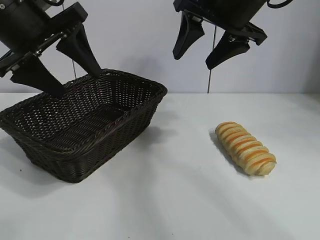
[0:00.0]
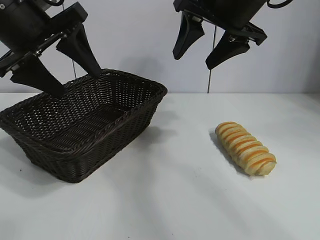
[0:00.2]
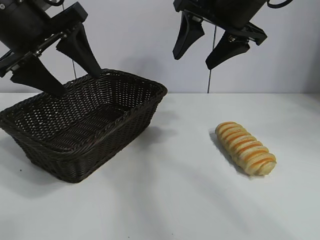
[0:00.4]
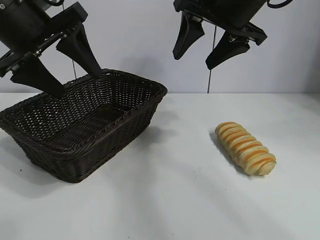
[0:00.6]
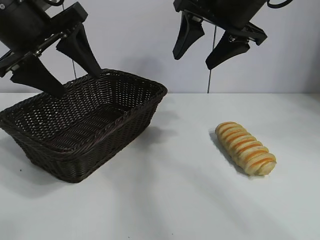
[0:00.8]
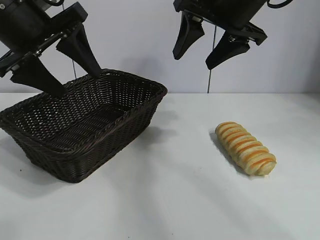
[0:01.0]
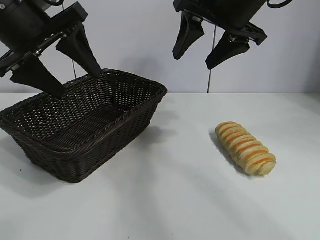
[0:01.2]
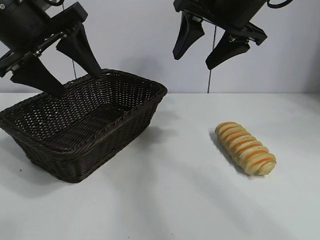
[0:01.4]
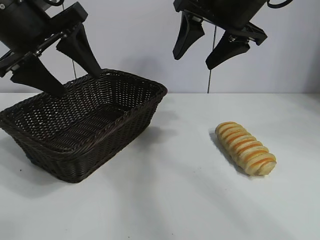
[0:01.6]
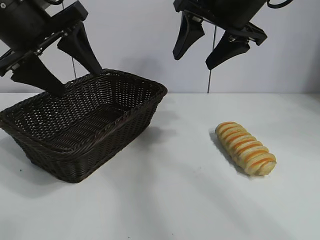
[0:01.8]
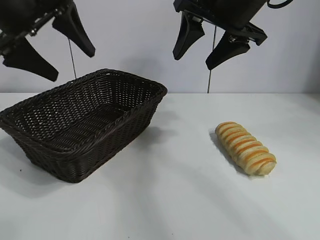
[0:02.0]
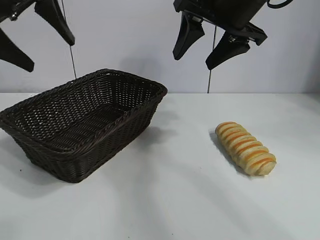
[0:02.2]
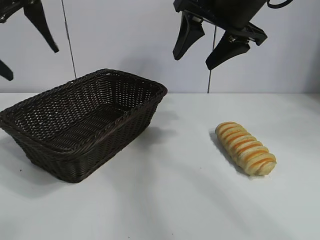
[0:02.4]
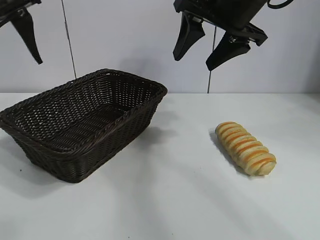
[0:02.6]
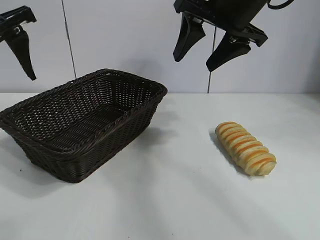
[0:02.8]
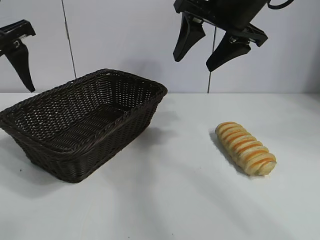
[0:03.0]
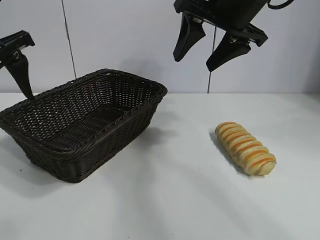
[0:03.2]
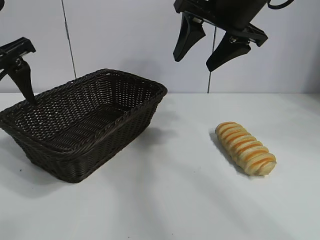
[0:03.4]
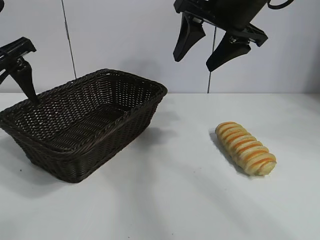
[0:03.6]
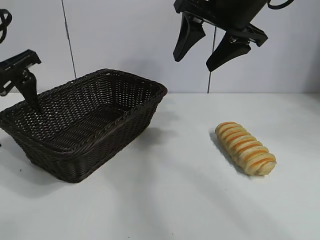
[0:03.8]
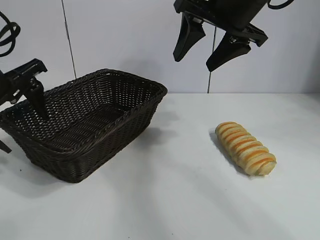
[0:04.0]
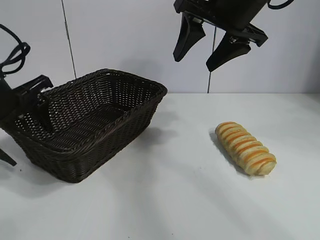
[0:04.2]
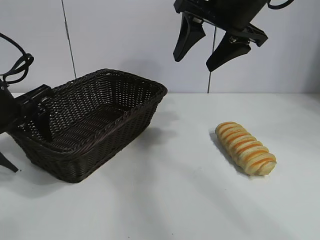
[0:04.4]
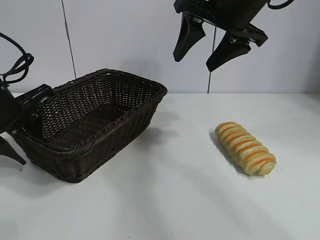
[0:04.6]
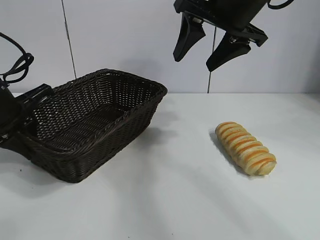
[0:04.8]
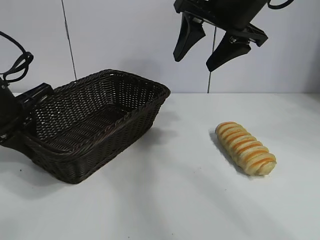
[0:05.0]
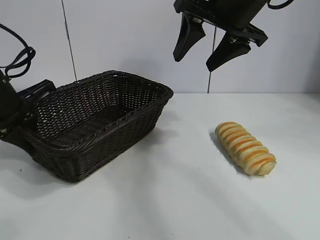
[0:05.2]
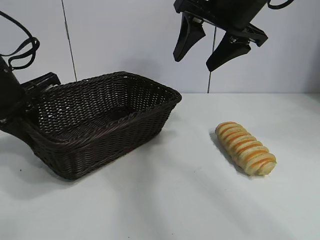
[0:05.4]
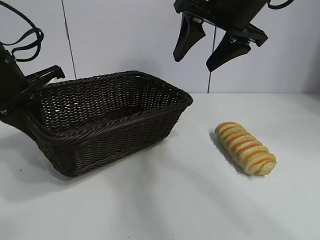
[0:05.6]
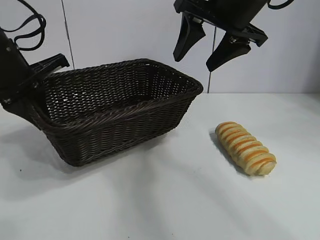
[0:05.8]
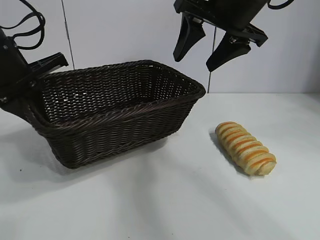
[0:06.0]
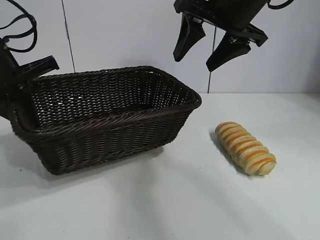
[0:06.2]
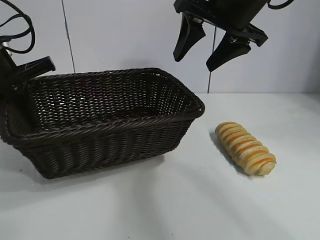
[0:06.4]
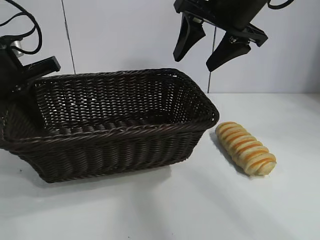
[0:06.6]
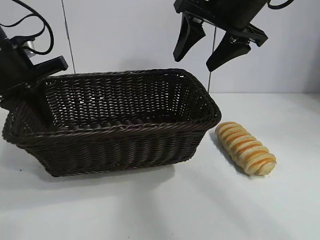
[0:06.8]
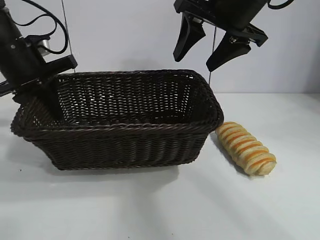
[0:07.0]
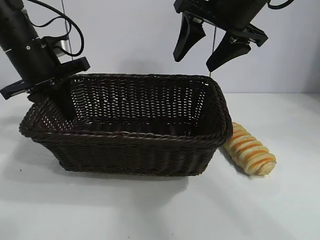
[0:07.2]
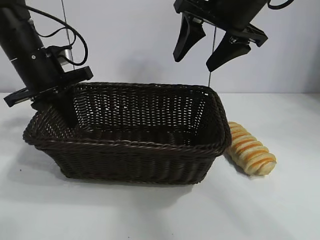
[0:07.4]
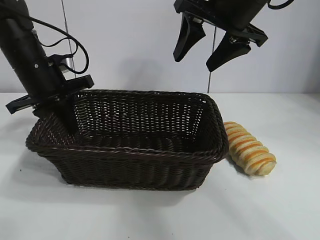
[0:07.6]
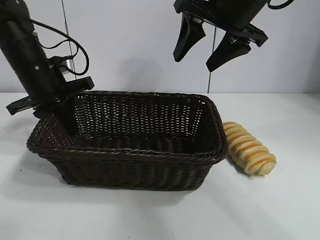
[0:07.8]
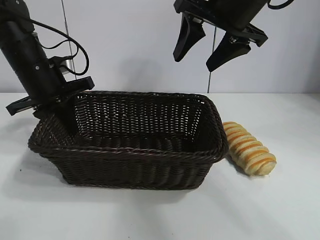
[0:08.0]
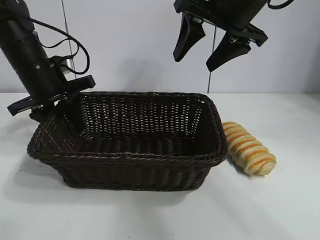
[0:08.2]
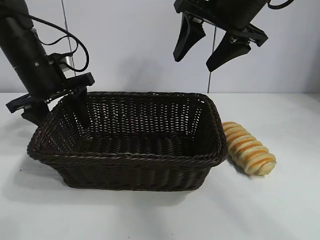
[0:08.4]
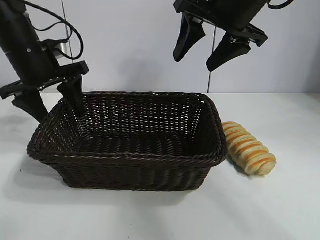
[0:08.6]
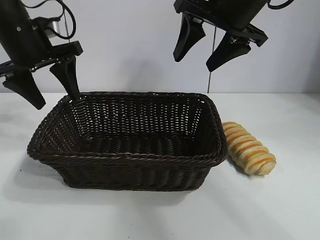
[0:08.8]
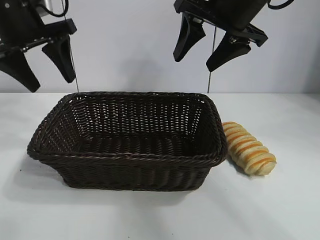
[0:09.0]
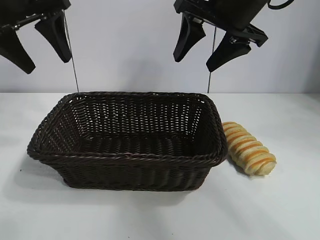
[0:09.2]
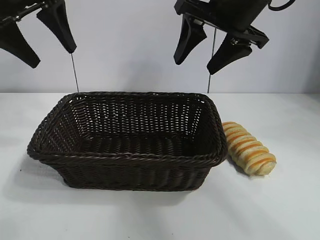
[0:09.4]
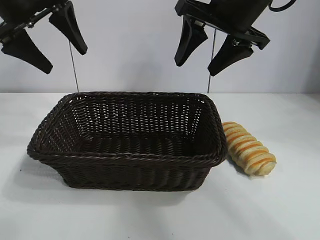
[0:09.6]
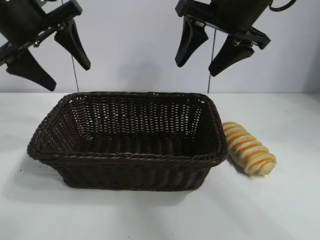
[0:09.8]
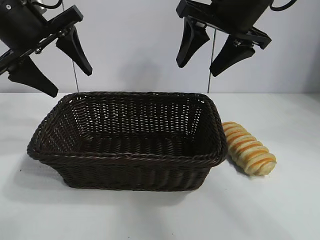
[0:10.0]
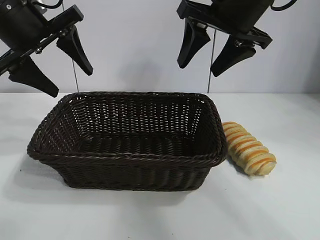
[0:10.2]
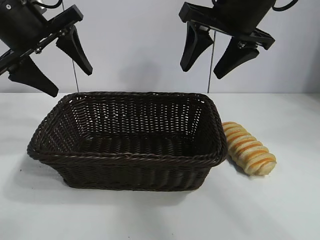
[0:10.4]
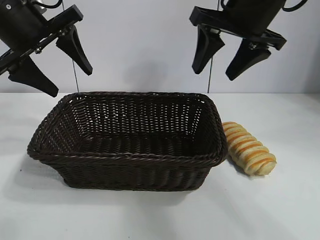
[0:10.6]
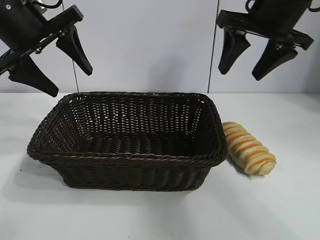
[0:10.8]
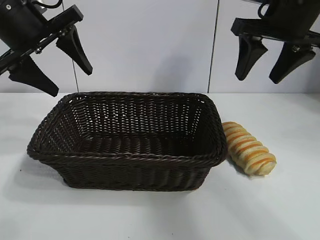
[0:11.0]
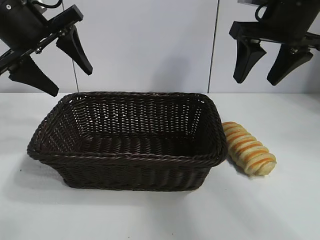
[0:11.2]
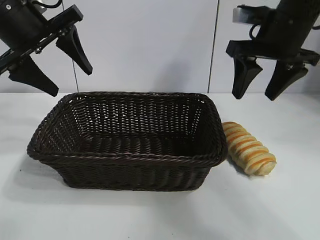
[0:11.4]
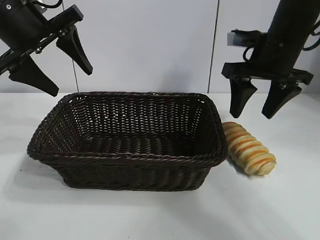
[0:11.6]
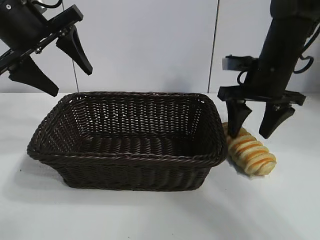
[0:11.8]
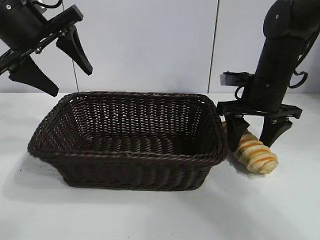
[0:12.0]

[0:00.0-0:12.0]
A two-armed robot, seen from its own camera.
Task of the whole recording: pick up the long bread and put it into the basket.
Step, 0:01.8 to 0:04.8: Grasp the basket with the left gripper.
Step, 0:05.0 to 0:08.4: Place the basket in the center of the table with the left gripper.

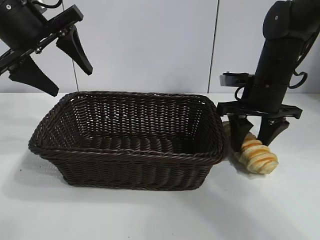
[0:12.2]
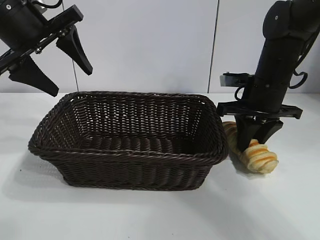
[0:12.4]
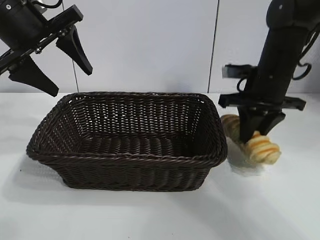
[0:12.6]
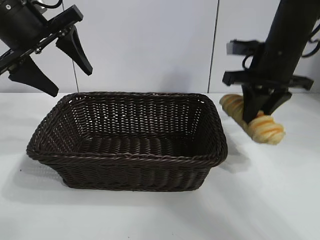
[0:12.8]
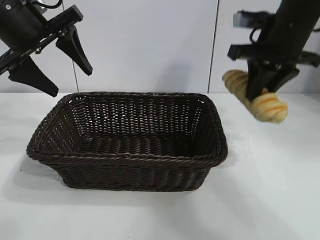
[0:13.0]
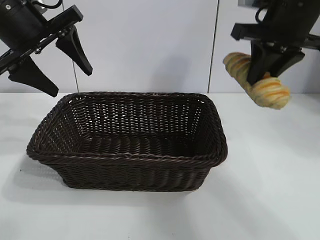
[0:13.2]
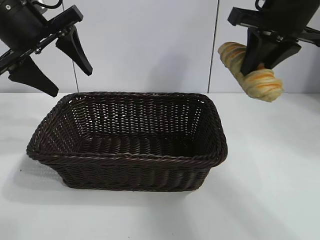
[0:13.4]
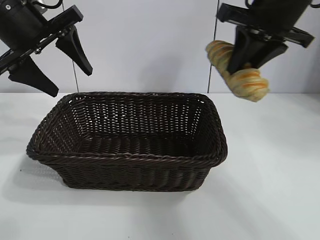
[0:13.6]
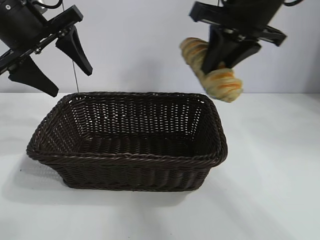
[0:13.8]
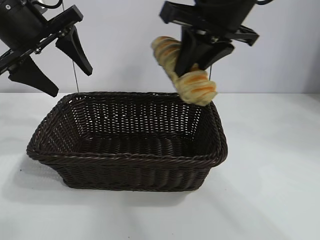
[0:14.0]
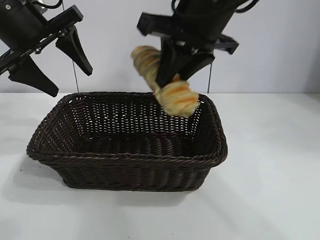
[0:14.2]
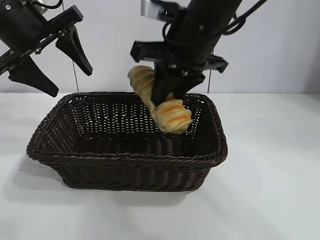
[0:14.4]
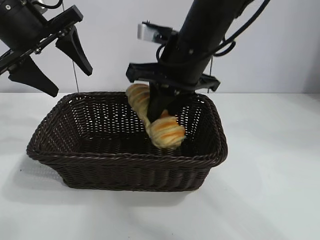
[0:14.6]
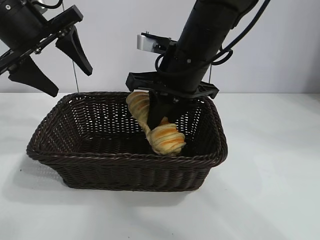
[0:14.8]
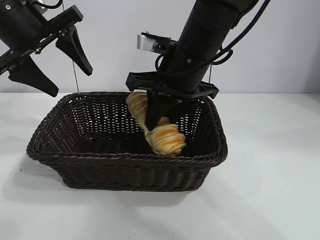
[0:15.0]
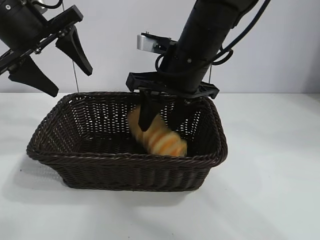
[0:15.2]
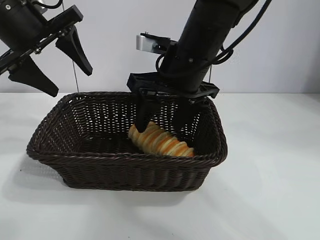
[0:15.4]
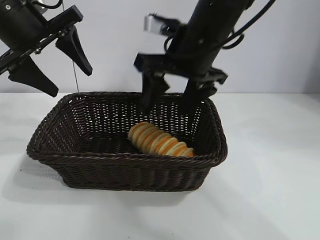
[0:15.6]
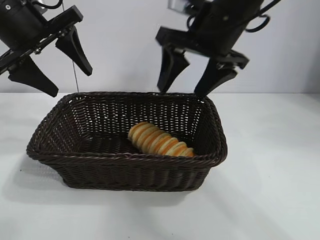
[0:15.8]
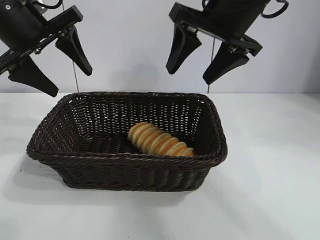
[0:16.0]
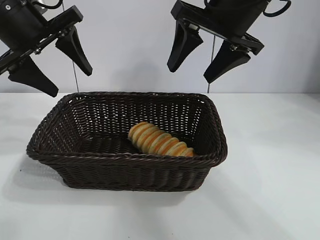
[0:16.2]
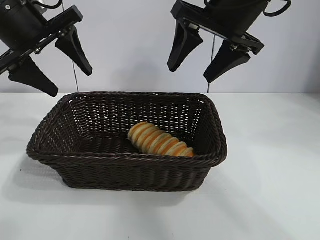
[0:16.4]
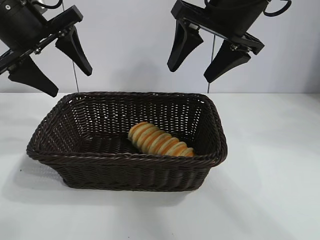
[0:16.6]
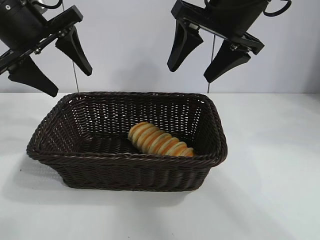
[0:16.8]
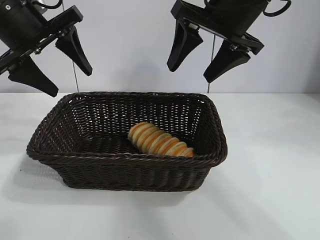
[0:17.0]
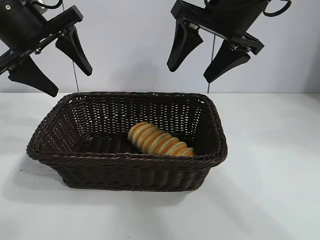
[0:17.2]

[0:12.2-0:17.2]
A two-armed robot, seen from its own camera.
Task of the whole recording: pick up the long bread and put it into the basket.
Step, 0:12.6 to 0:15.4: Place the long bread in the basket with right gripper.

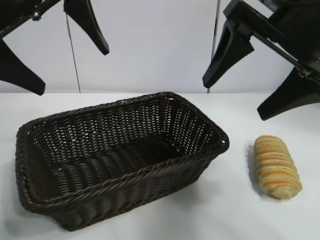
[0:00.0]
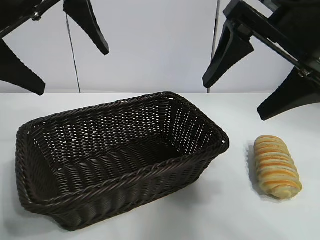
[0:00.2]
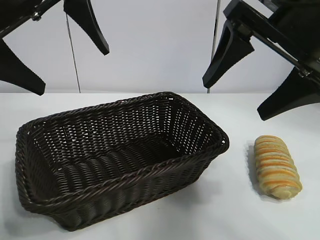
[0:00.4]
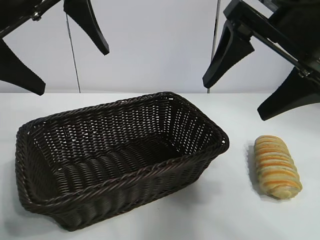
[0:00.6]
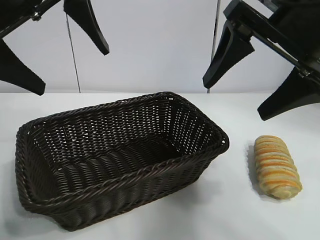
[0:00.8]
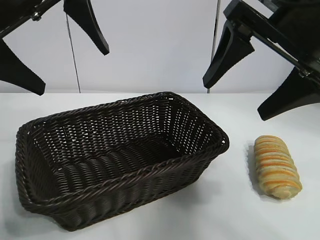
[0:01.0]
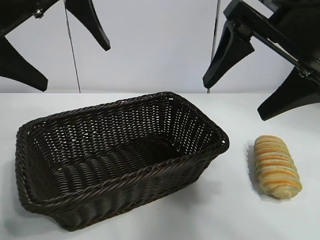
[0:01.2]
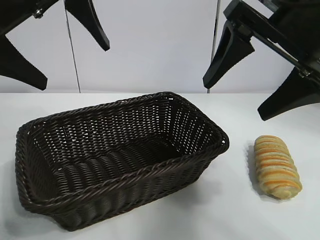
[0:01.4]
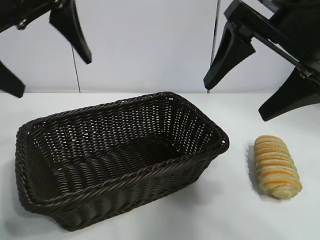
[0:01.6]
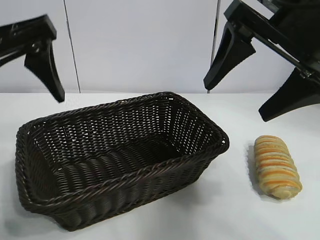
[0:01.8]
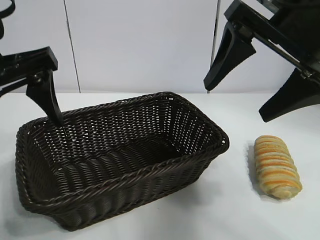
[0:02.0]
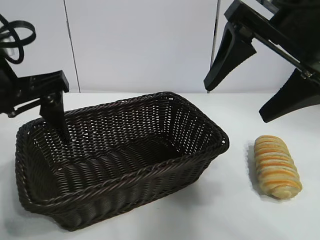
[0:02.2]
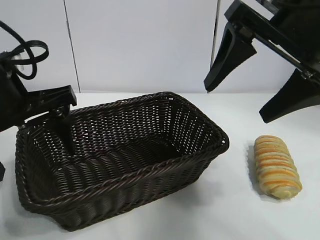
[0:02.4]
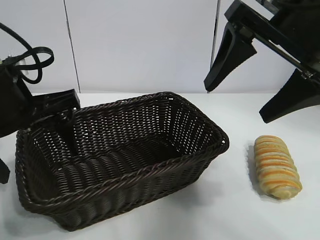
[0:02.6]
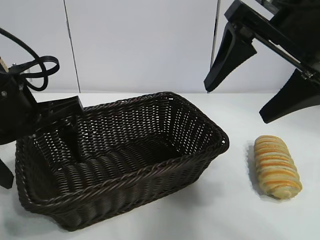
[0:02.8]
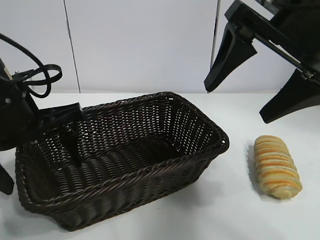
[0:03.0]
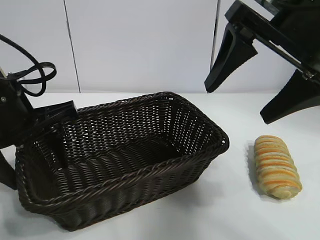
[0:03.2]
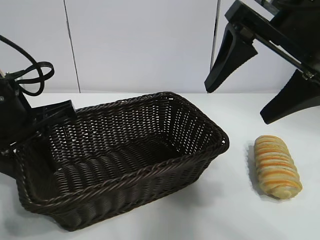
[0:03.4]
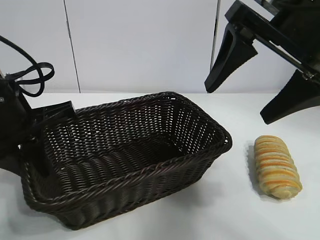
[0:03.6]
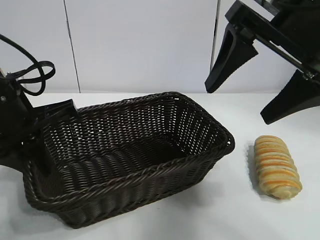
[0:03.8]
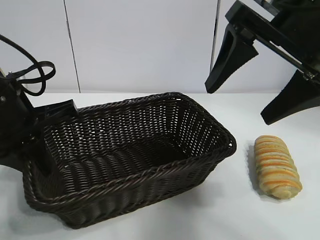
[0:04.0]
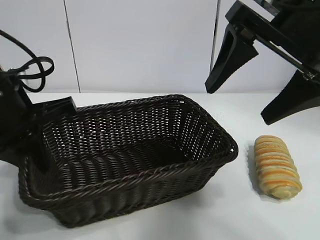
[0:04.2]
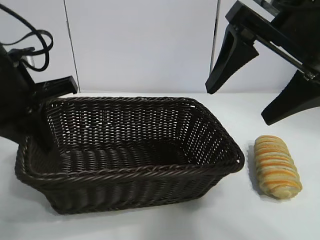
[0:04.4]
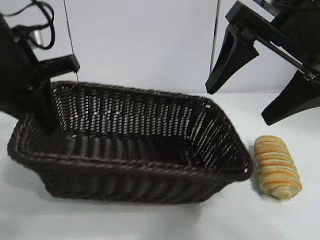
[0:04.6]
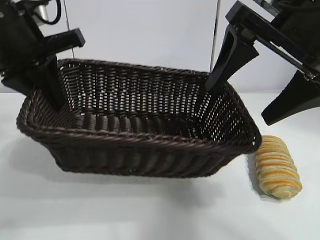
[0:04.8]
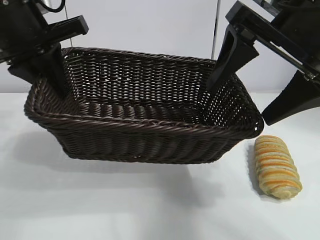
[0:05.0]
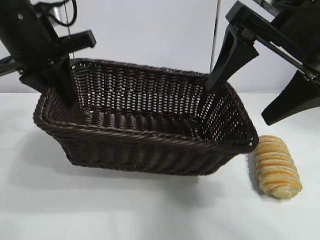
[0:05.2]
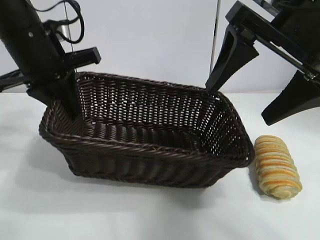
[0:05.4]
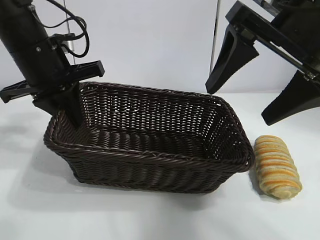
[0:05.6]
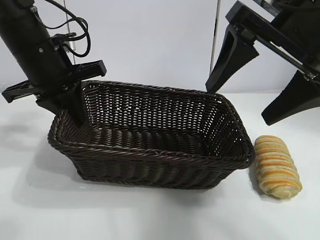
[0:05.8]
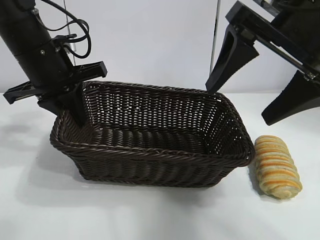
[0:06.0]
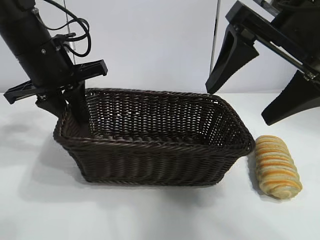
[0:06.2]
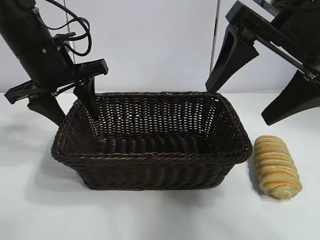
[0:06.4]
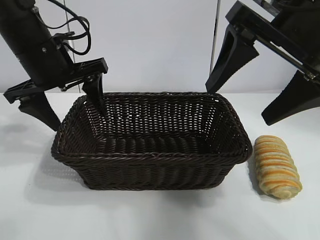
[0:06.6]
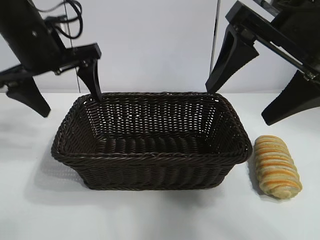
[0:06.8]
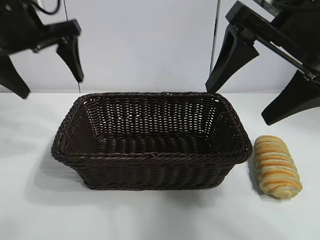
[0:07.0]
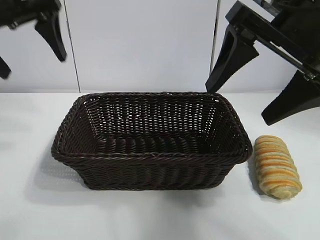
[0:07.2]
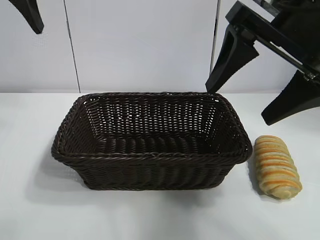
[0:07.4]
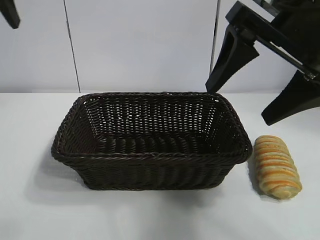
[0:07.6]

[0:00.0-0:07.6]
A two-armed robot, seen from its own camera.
Task of the whole recording: pick up the long bread and put it into the basket.
Step, 0:01.2 to 0:04.0: Grasp the basket with the left gripper.
Step, 0:04.2 to 0:06.6: Place the basket in the center of the table with the left gripper.
